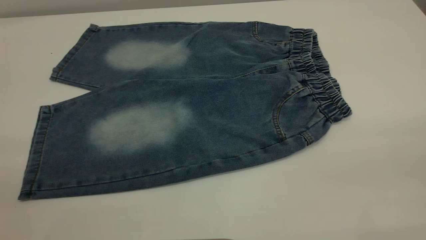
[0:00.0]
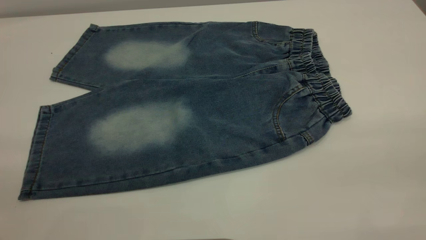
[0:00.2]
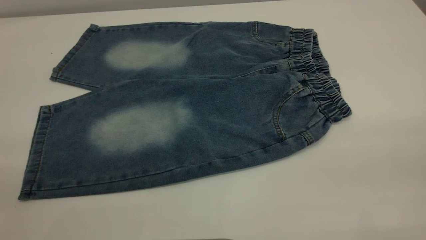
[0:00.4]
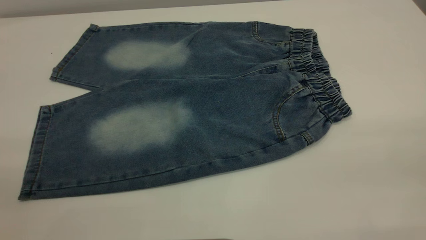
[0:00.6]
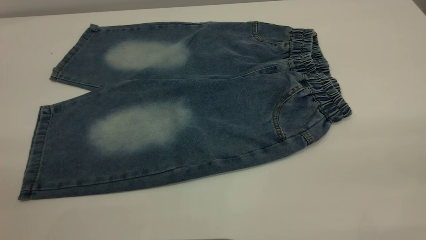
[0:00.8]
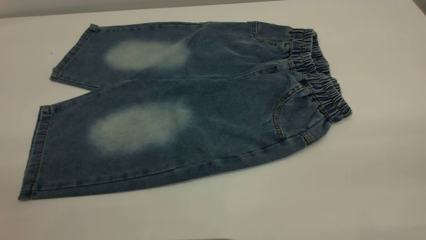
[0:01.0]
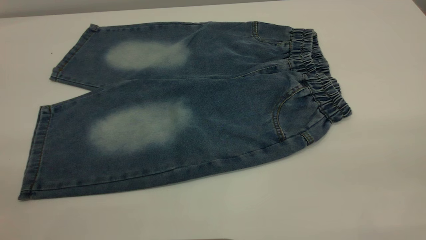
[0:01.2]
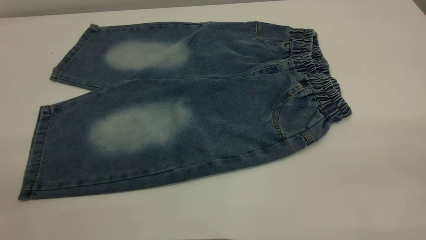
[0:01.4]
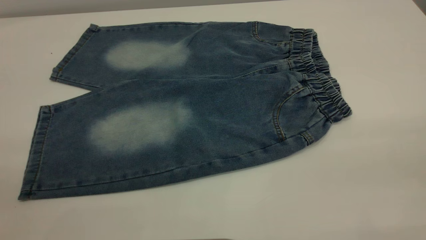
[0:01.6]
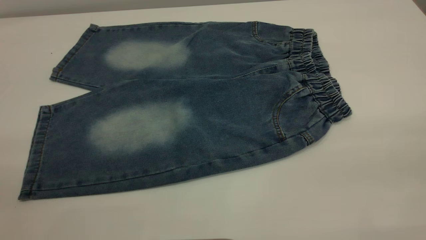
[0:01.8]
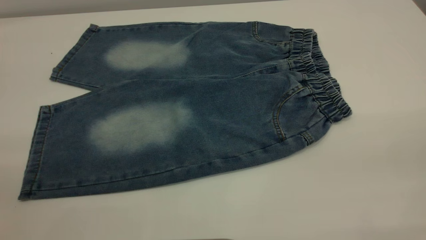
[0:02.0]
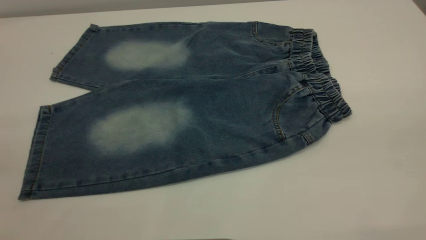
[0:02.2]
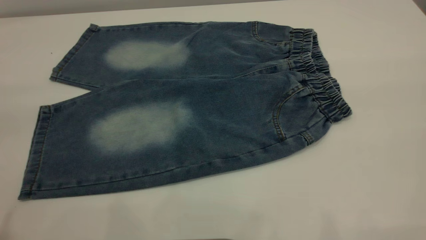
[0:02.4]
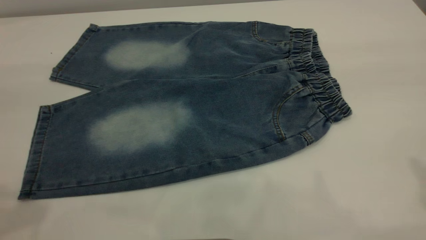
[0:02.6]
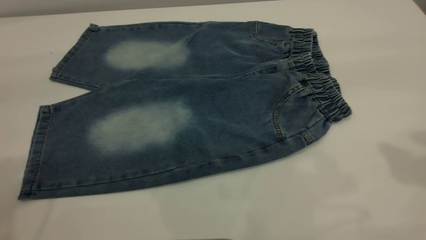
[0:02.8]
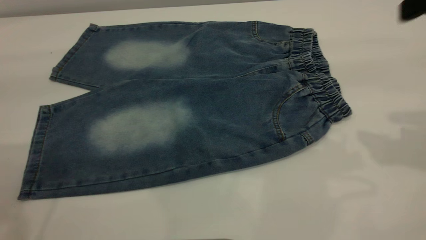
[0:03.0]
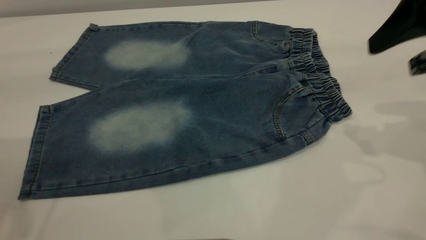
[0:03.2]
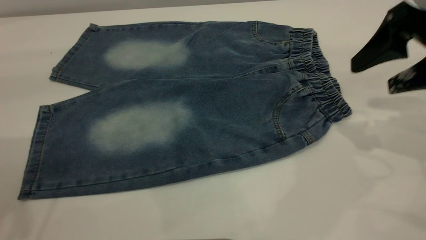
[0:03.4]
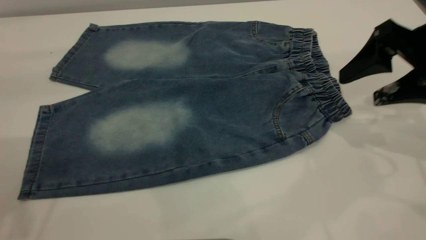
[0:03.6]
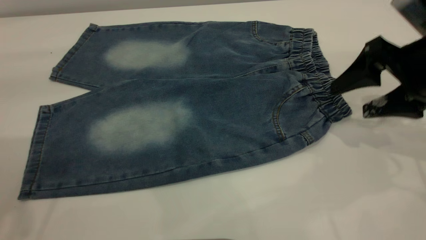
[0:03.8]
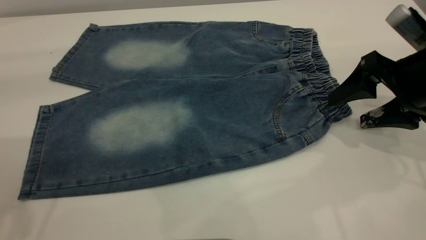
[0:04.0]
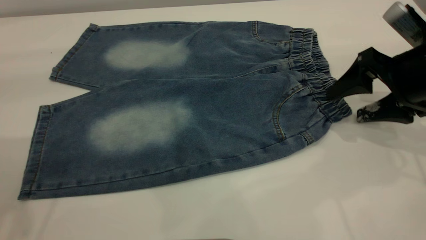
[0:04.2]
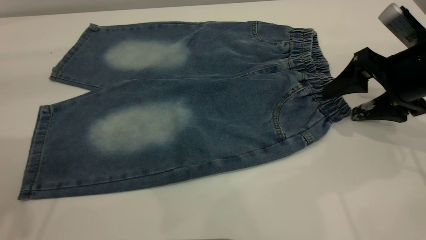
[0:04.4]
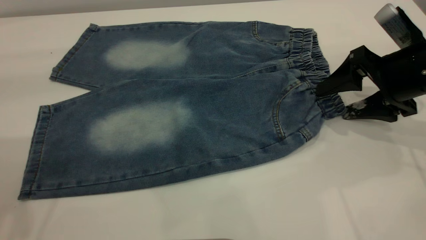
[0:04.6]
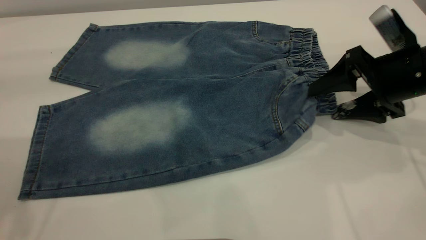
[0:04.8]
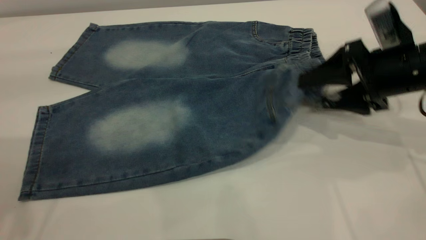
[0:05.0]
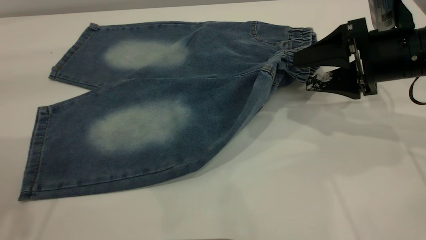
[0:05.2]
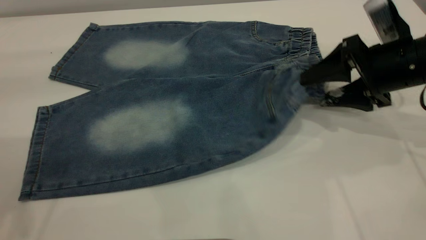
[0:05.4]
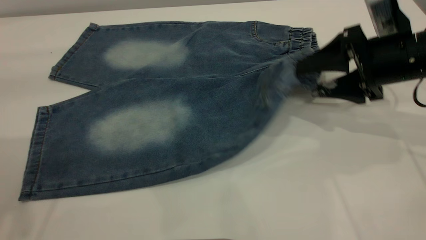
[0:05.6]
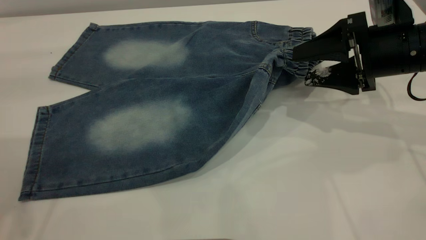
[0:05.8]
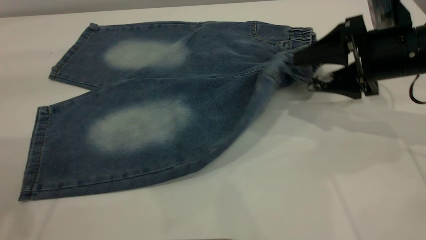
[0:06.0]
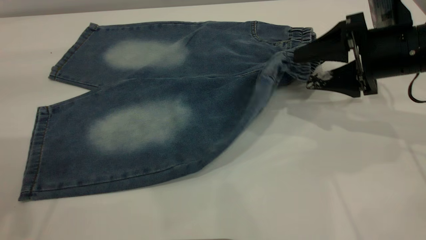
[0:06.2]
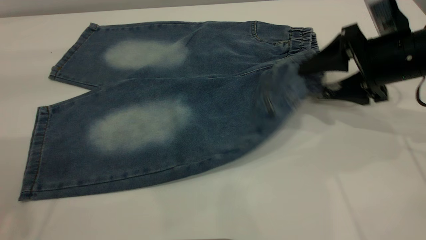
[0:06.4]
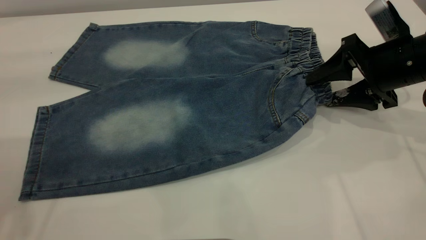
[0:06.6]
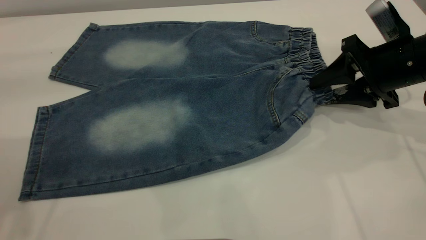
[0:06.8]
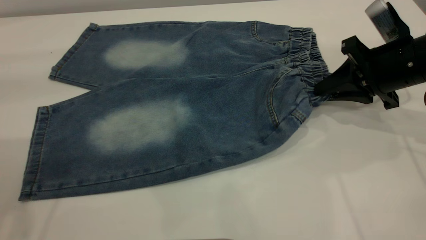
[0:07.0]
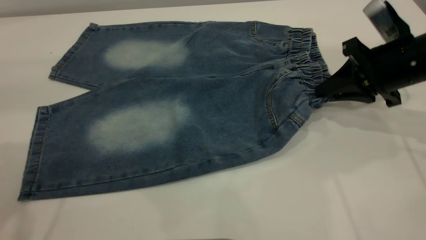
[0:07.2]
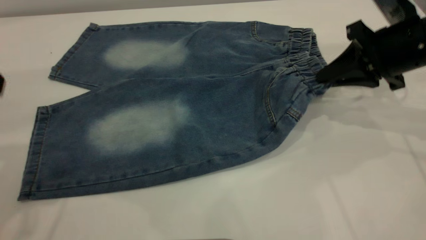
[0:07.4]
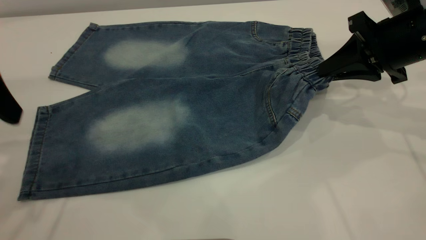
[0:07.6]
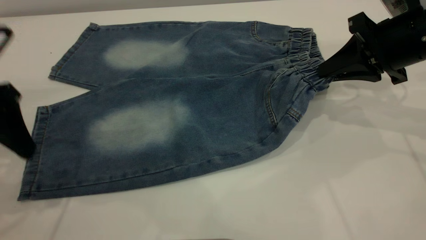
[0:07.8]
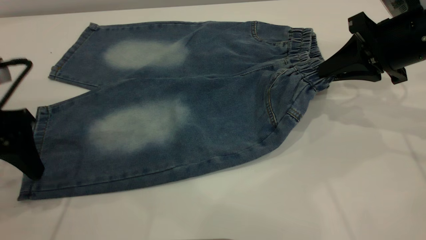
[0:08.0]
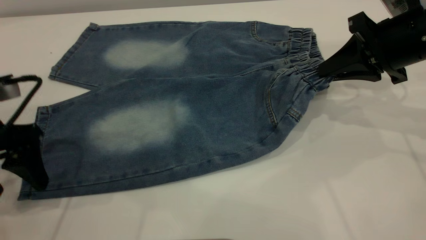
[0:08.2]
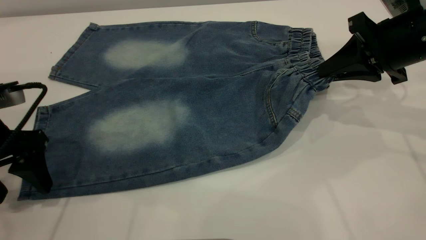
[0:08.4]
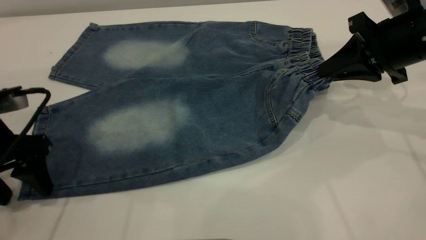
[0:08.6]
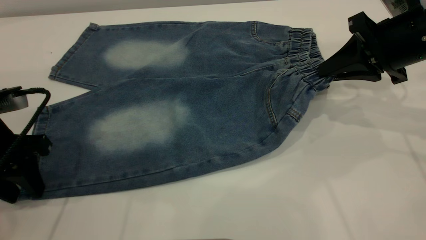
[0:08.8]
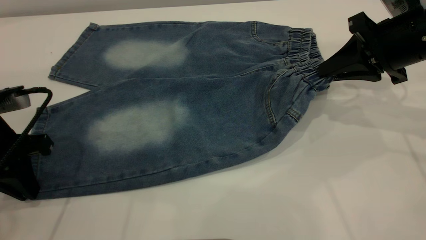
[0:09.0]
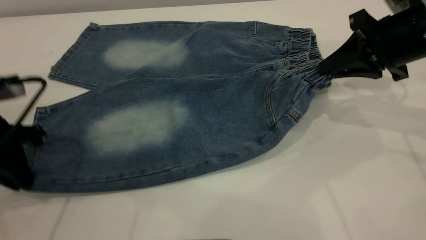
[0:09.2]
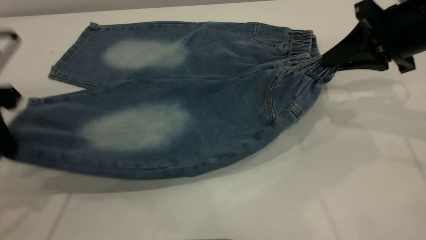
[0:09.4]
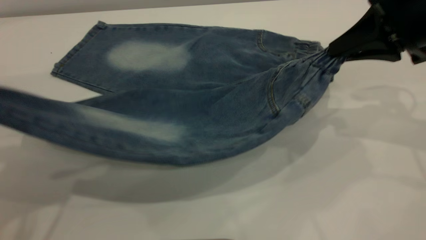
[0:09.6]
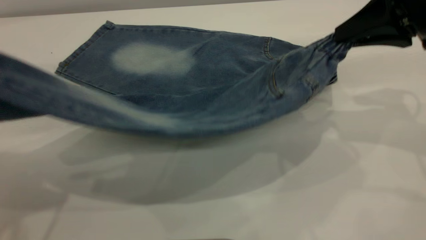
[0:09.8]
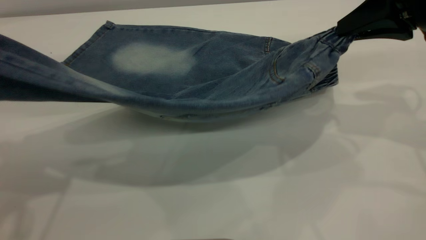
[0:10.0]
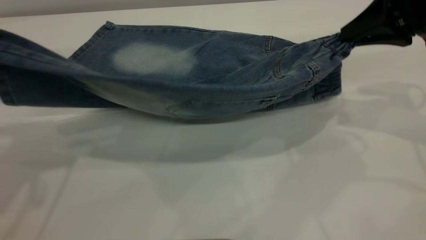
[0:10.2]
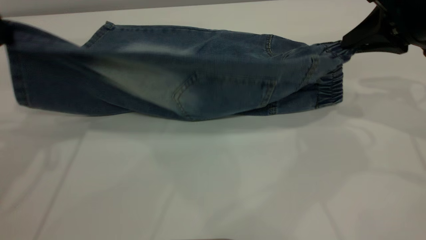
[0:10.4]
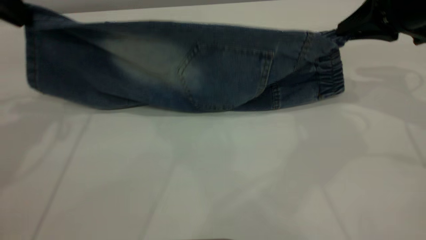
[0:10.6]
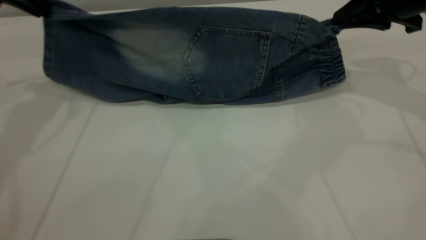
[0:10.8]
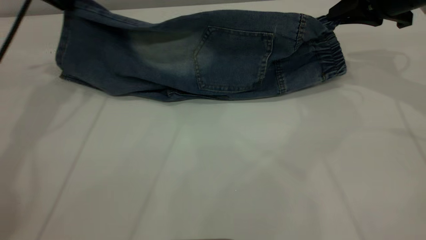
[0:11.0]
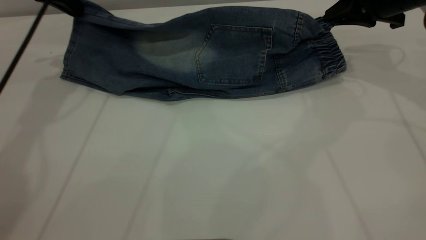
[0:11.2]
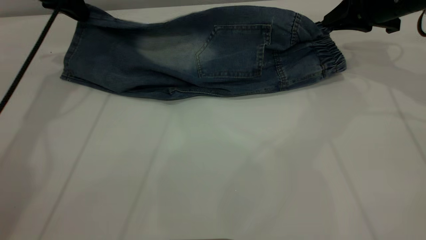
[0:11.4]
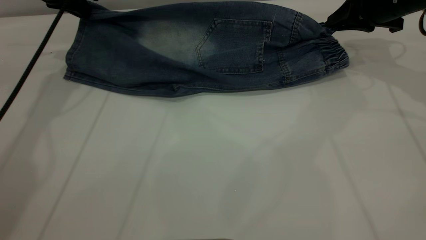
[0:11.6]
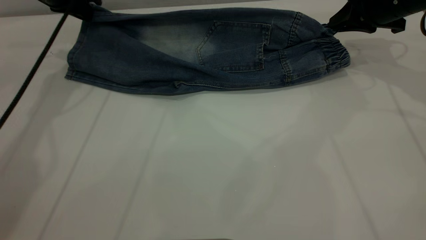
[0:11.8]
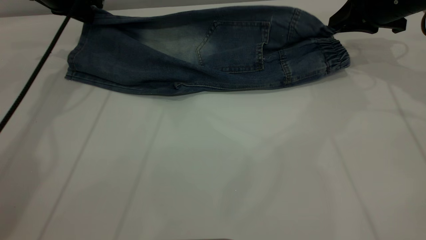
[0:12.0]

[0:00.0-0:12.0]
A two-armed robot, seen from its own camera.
0:00.0 to 0:01.6: Neither gripper changes place.
0:03.0 to 0:04.4: The right gripper moves downward, about 15 cm.
0:06.0 to 0:07.6: The left gripper moves downward, some 10 cm, while the right gripper closes its fingers.
0:07.6 to 0:09.0: The left gripper is displaced downward by roughly 10 cm, and closes up.
0:09.0 to 0:10.4: The left gripper goes about 20 cm upward and forward.
0:10.4 to 0:12.0: The right gripper goes approximately 10 cm forward; the left gripper travels forward and downward by some 20 cm.

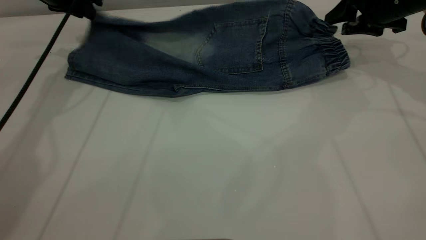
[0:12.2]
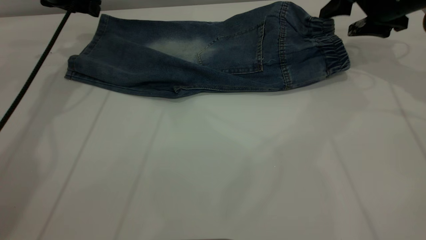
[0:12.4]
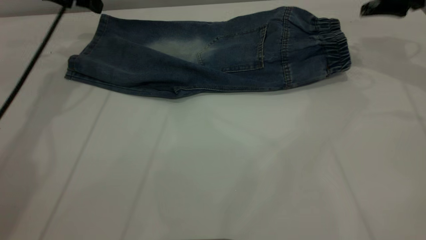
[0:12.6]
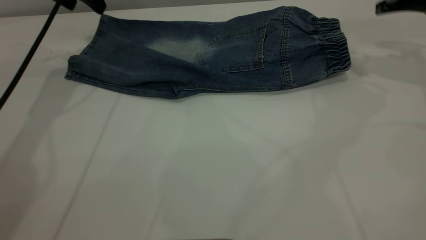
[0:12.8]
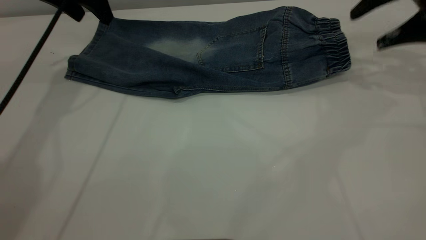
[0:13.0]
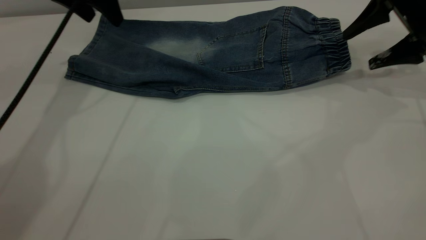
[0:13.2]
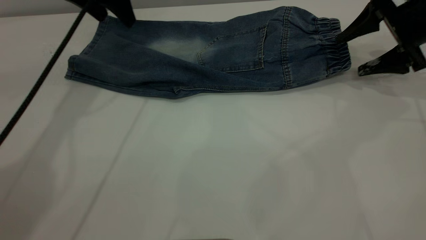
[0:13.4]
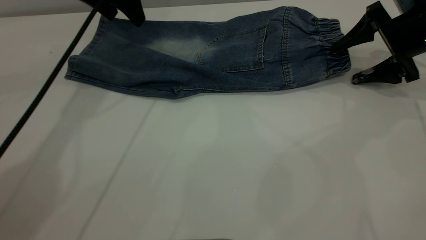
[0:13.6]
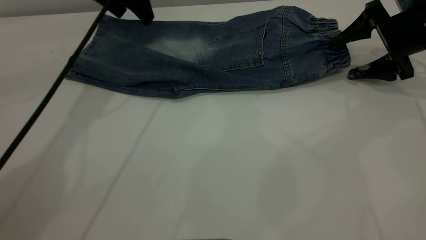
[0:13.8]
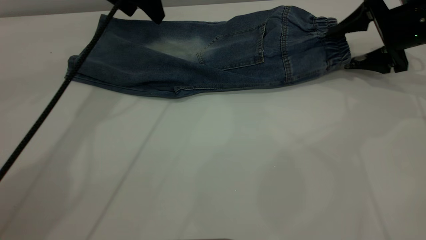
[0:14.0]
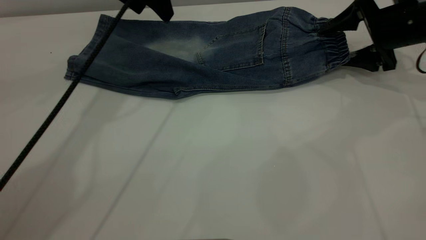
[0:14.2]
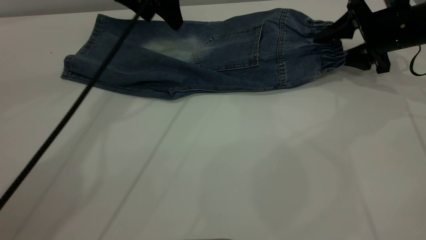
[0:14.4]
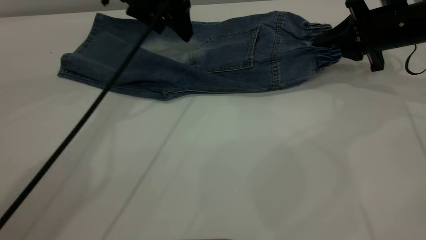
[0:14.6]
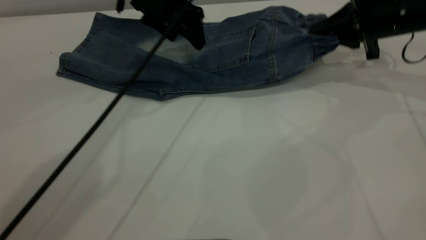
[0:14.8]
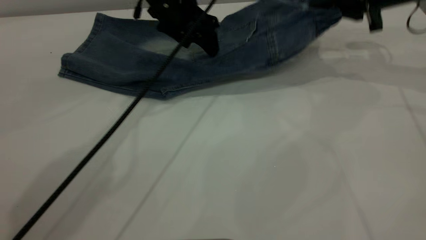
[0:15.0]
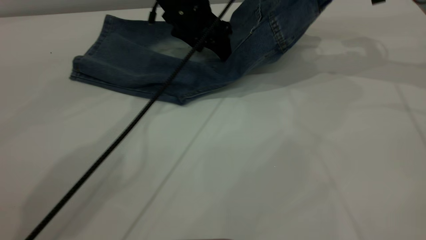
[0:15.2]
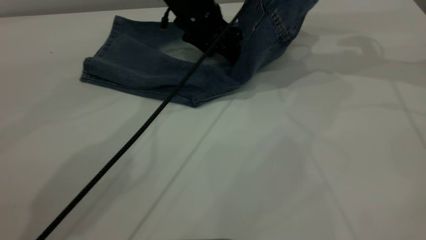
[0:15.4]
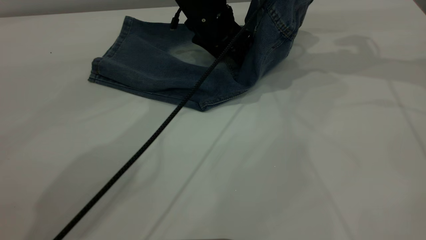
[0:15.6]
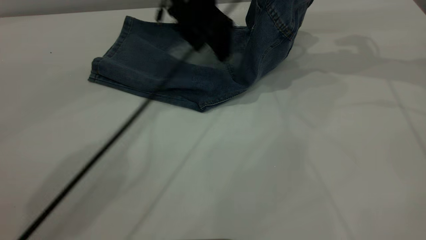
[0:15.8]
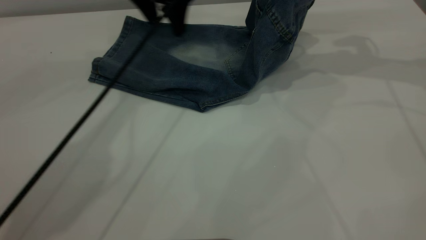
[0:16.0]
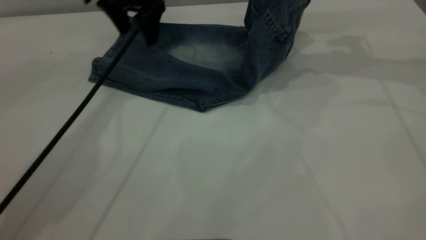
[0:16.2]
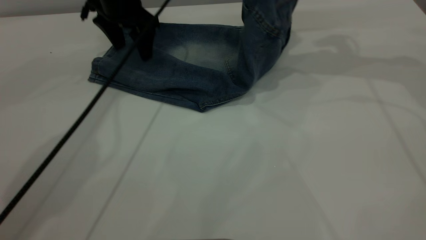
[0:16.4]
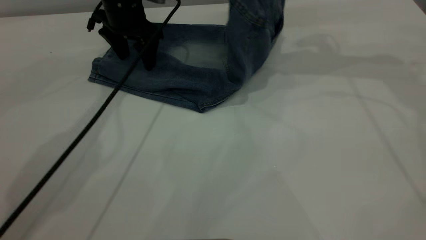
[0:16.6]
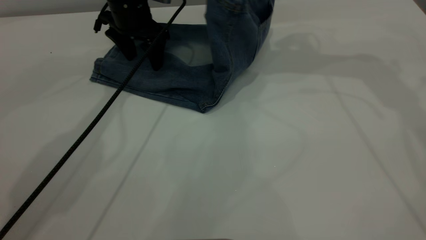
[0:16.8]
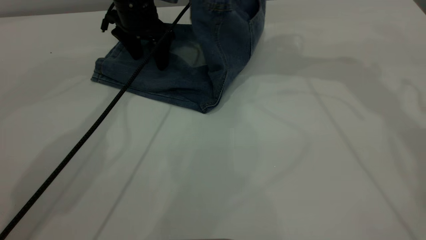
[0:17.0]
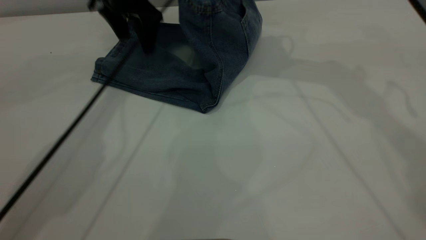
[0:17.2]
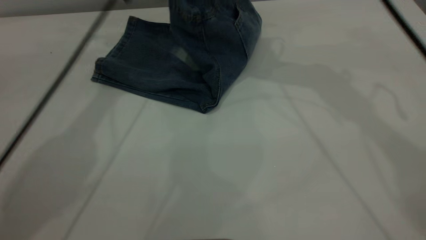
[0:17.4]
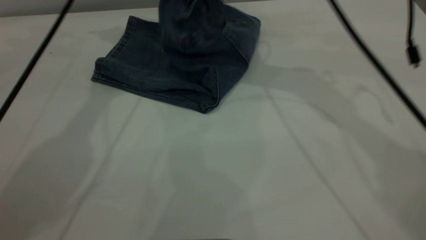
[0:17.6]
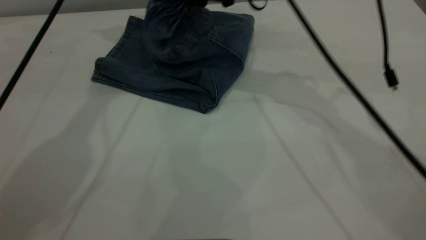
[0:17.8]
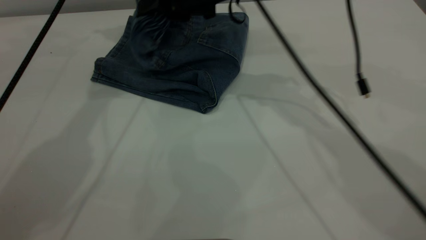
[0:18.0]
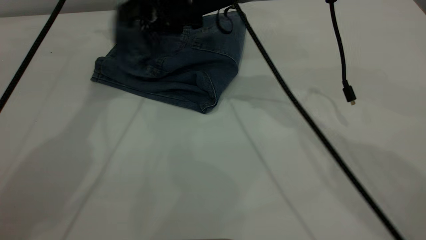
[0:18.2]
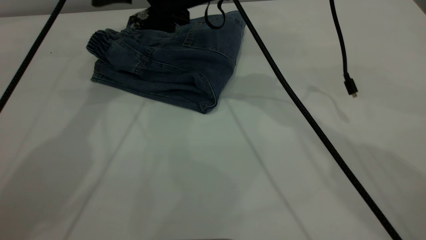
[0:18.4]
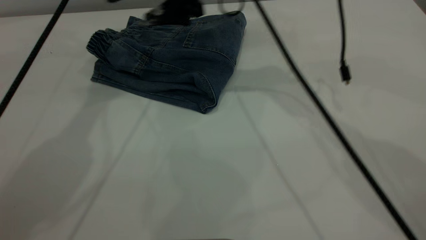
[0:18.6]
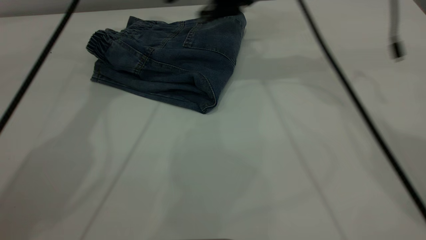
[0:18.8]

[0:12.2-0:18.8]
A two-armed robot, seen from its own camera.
Step, 0:12.8 to 0:18.6: Fold your pants from right to left.
0:12.2 to 0:13.8: The right gripper reaches roughly 5 cm upward, then returns, while the left gripper is displaced to the right by some 10 cm, and opens its fingers.
0:13.8 to 0:15.4: The left gripper shifts some 15 cm to the right and downward, while the right gripper travels upward and to the left by roughly 15 cm, and closes.
0:15.4 to 0:17.2: The left gripper travels to the left and upward by approximately 15 cm, while the right gripper is displaced to the left by some 15 cm.
0:17.2 to 0:18.8: The left gripper heads upward, covering about 15 cm. Meanwhile the right gripper is displaced downward by roughly 5 cm, goes to the left and returns, roughly 10 cm each way, and opens up.
